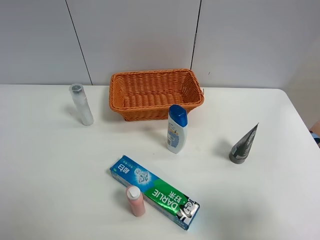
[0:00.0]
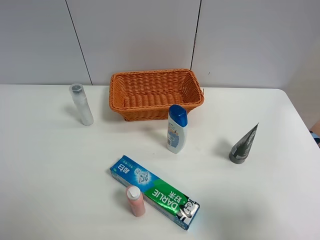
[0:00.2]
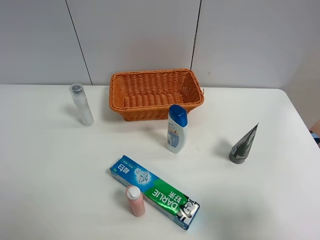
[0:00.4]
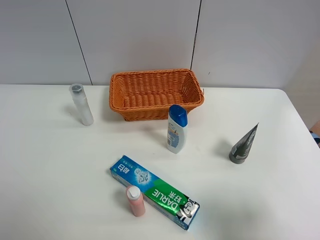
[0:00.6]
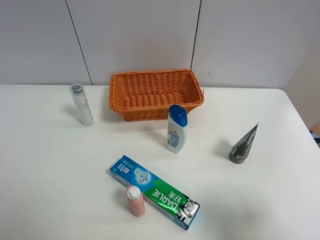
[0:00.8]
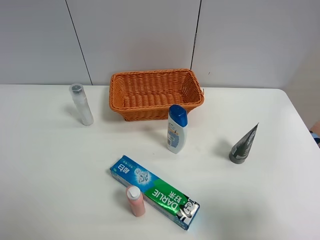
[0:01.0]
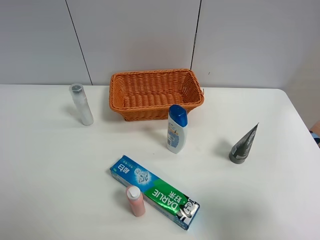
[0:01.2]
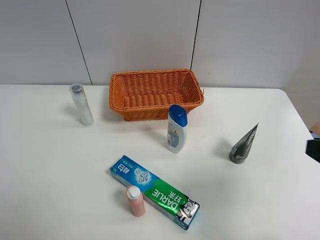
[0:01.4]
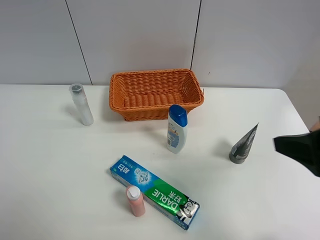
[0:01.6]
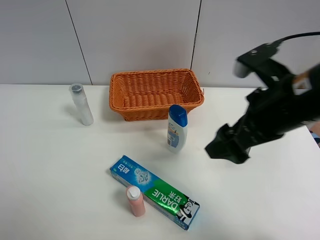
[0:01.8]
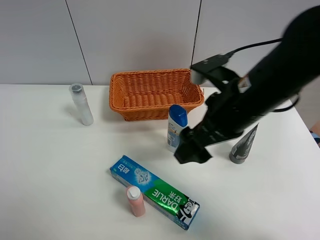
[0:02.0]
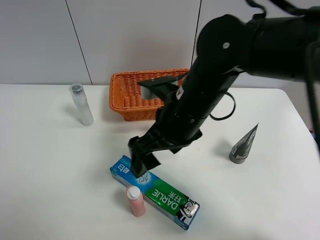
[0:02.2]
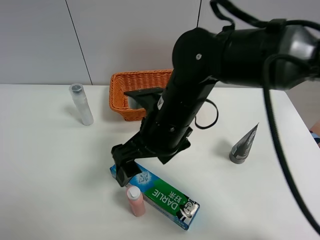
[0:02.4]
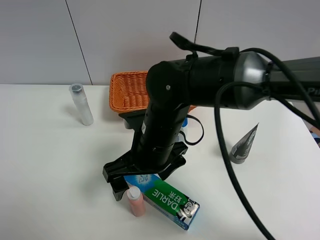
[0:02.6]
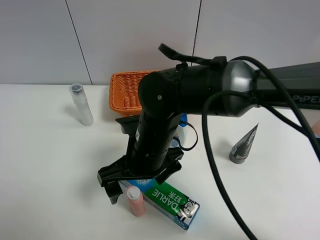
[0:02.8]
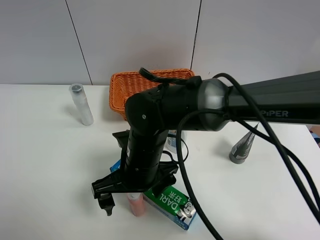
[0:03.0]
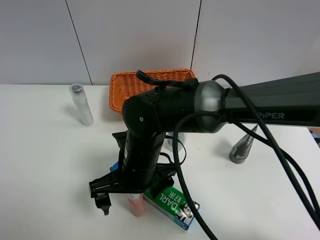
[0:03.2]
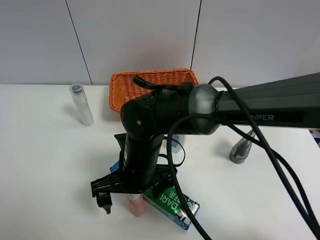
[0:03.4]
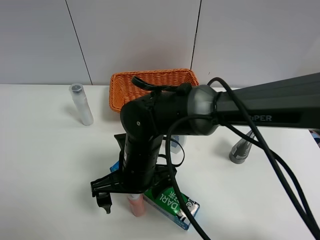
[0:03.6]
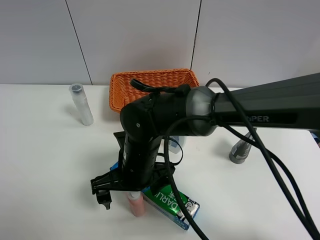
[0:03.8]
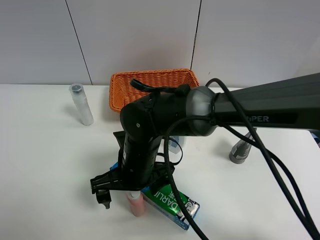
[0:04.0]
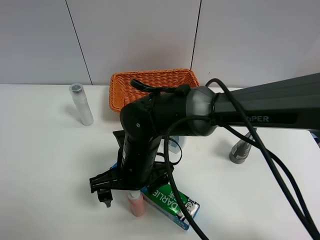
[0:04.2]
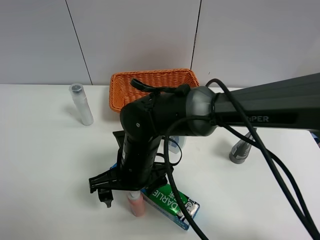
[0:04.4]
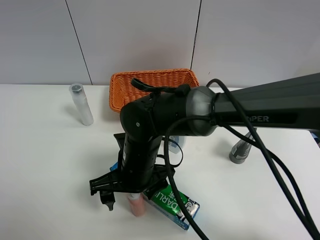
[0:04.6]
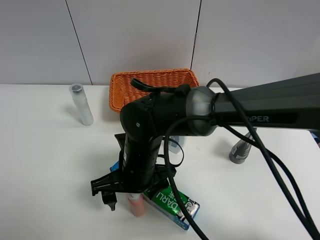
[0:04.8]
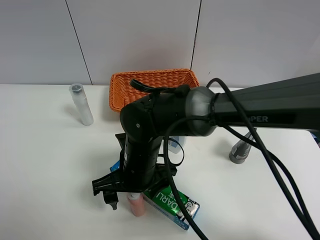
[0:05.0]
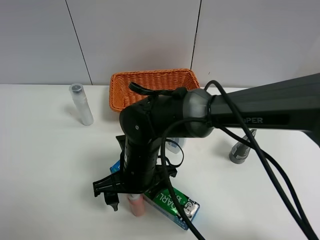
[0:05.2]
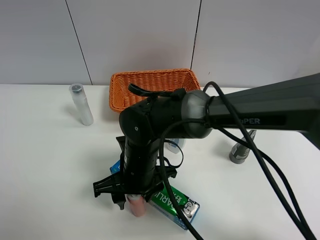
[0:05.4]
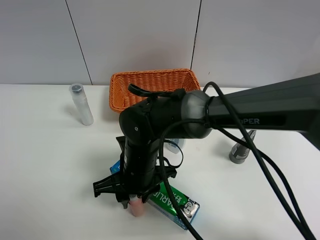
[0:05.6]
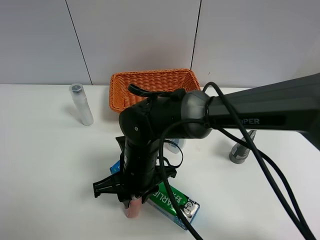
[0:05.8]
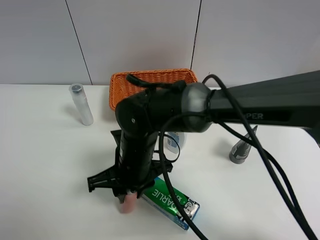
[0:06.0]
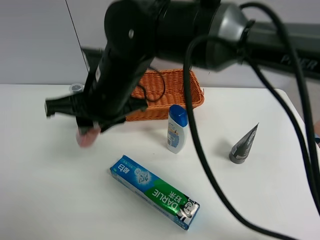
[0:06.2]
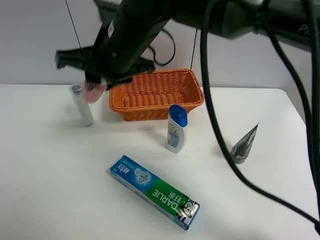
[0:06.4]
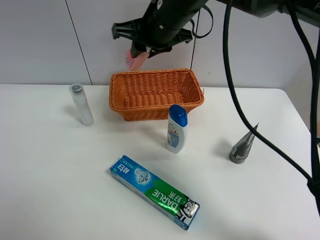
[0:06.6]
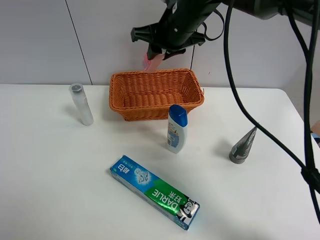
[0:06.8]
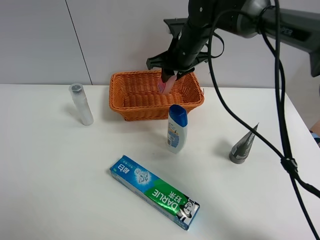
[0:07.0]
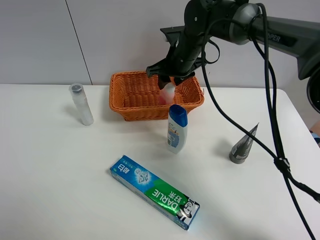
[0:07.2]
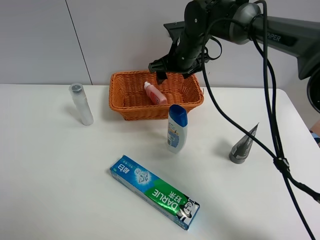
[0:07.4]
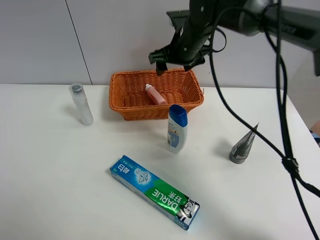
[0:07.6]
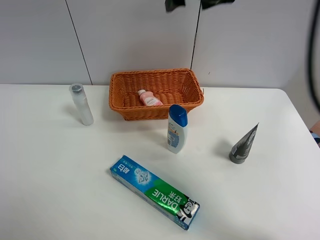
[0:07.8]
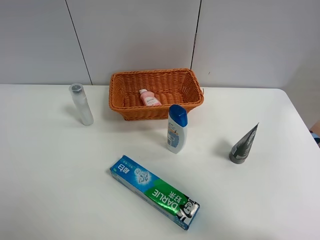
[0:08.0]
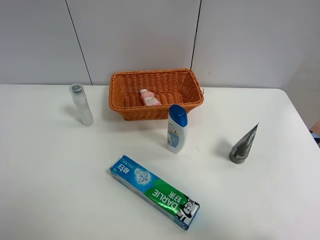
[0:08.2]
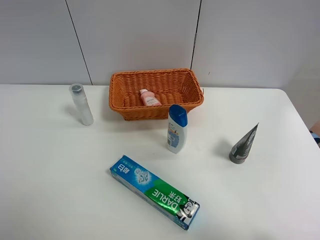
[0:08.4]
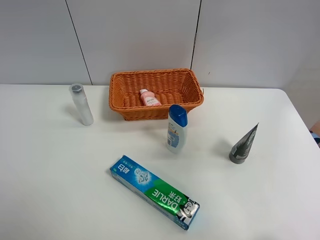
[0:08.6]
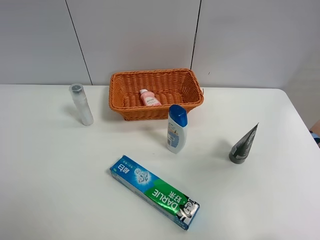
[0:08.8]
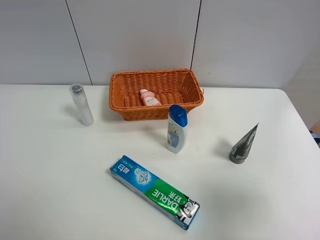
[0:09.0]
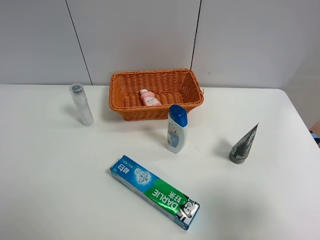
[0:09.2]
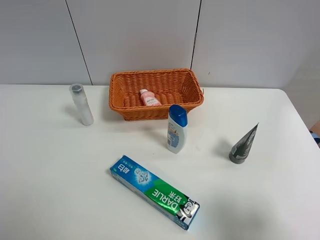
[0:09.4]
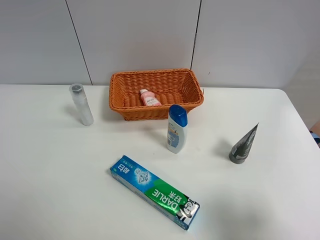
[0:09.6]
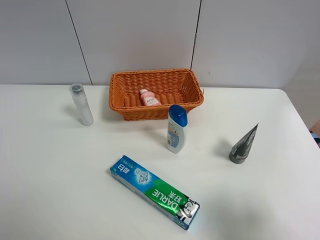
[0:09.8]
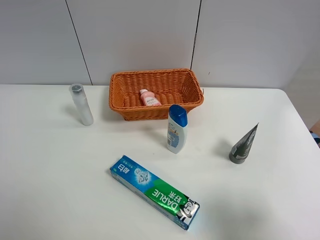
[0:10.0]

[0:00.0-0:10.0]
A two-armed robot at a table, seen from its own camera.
Task of the whole recording: Place the object closest to the toothpaste in the basket.
Step, 0:00.0 to 0:05.8: Grasp the pink laundry detergent with right gripper.
Step, 0:06.0 to 0:07.6: Place the pink laundry detergent in the basket with right gripper.
0:00.0 to 0:01.4: The right gripper shifts roughly 5 cm forward.
0:01.4 to 0:02.8: The right gripper heads to the left, downward and forward, covering approximately 35 cm.
0:04.2 to 0:05.8: The right gripper closes up.
0:05.8 to 0:07.2: The right gripper is displaced forward and to the right by about 25 cm, and opens.
0:07.2 to 0:08.6: The right gripper travels backward, to the right and upward by approximately 40 cm.
0:08.6 to 0:10.0: The right gripper heads downward and backward, covering roughly 20 cm.
